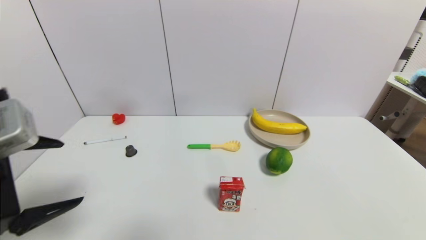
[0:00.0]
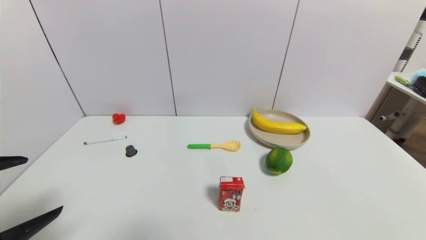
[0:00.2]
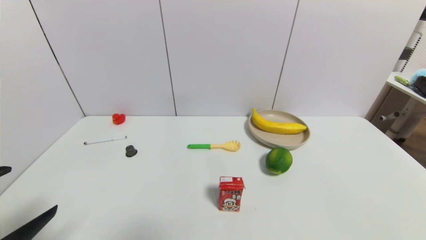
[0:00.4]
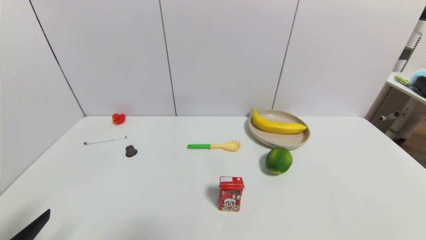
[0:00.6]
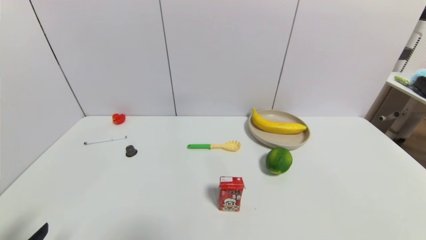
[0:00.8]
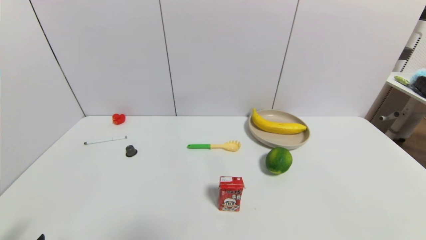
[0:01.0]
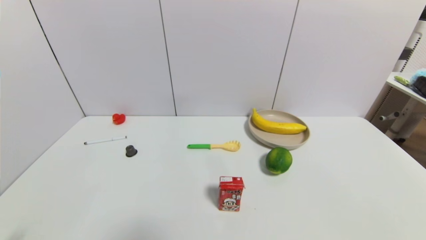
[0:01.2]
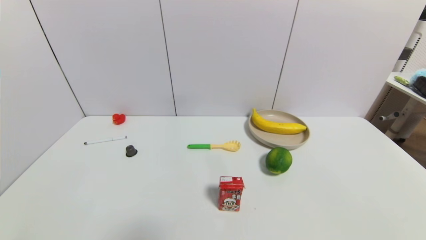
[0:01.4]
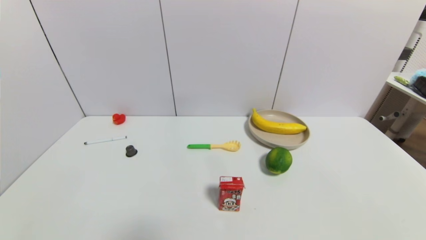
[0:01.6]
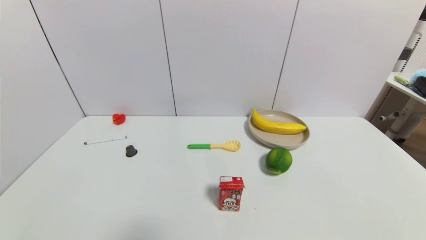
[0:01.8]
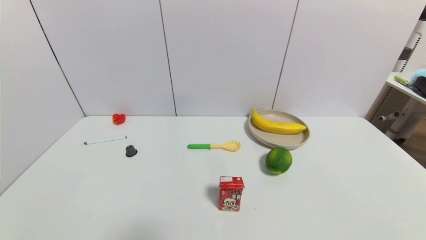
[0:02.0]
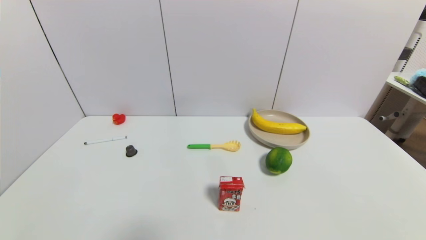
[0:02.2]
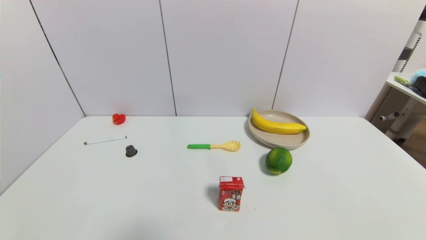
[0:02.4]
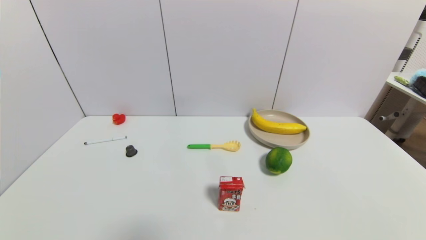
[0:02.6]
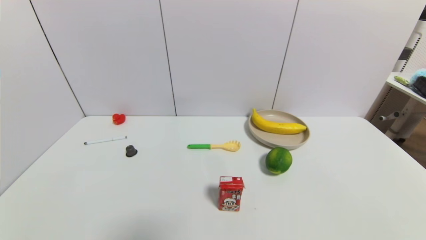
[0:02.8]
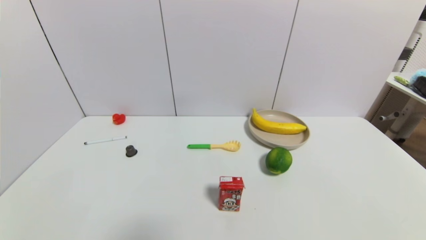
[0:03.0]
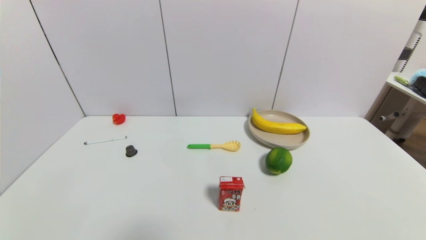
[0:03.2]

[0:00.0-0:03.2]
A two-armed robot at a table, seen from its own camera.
Task of the whole recording: use a gripper to pick the target object and place on the brown plate.
0:00.0 to 0:01.6: The left gripper moves downward and backward, about 25 cm.
